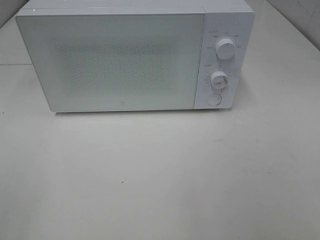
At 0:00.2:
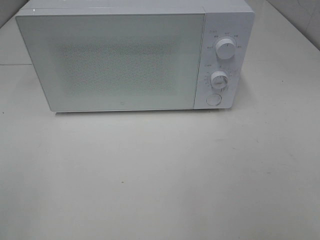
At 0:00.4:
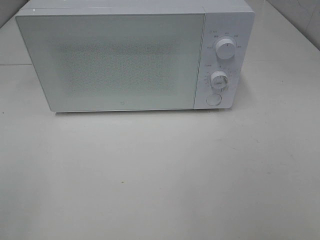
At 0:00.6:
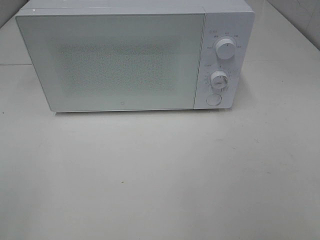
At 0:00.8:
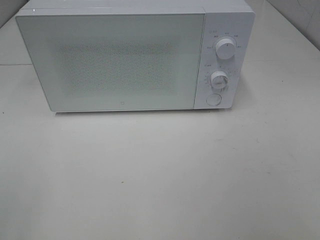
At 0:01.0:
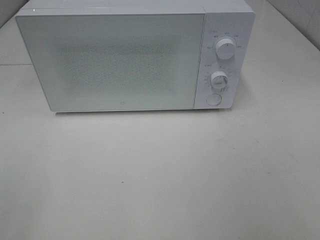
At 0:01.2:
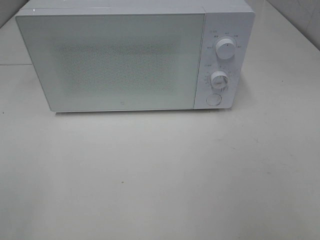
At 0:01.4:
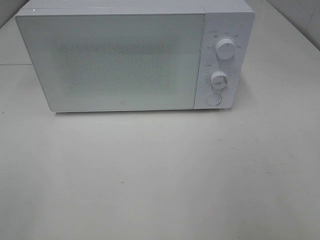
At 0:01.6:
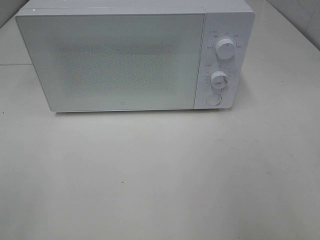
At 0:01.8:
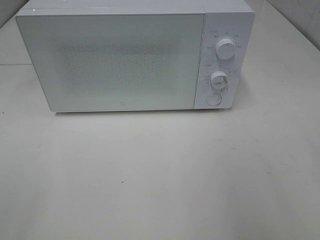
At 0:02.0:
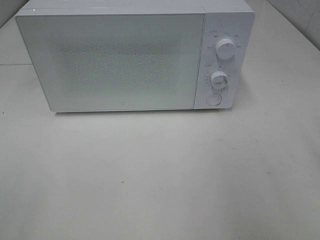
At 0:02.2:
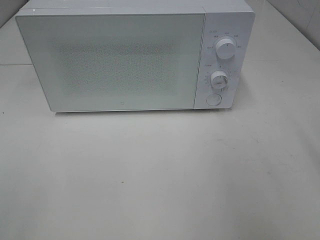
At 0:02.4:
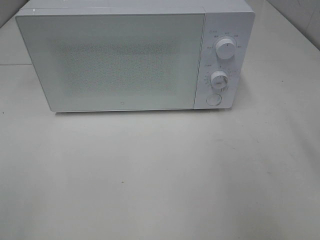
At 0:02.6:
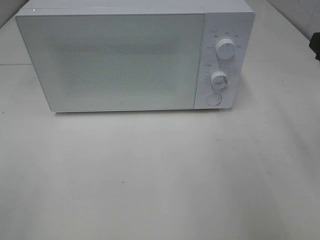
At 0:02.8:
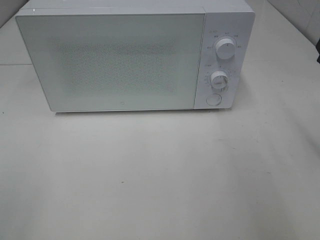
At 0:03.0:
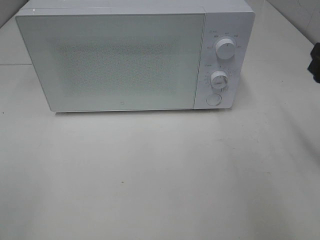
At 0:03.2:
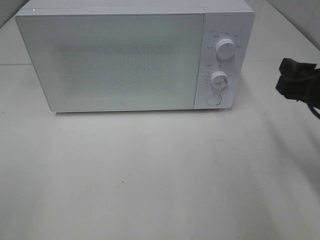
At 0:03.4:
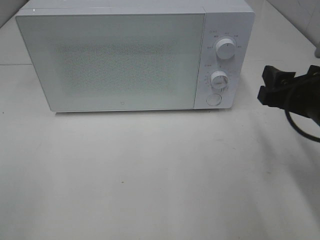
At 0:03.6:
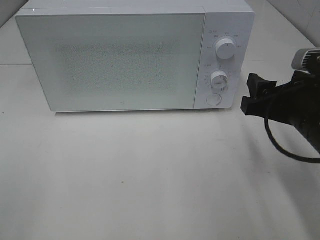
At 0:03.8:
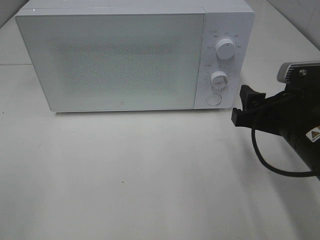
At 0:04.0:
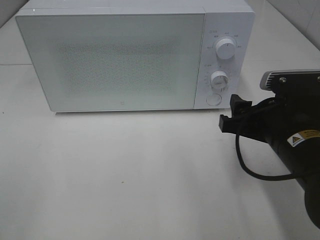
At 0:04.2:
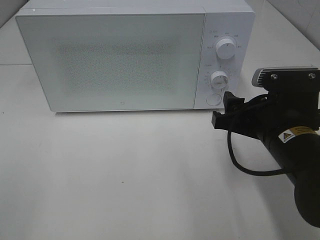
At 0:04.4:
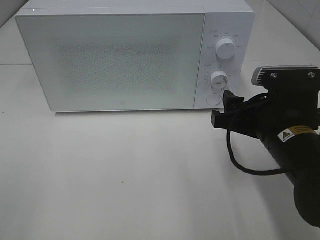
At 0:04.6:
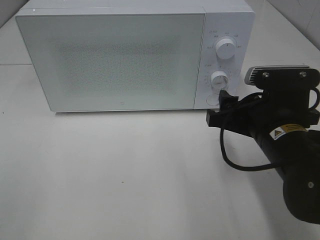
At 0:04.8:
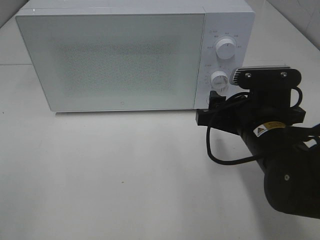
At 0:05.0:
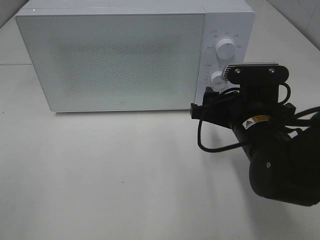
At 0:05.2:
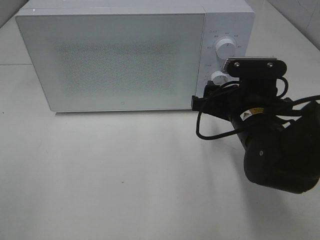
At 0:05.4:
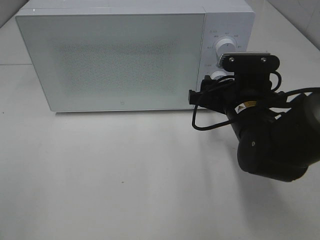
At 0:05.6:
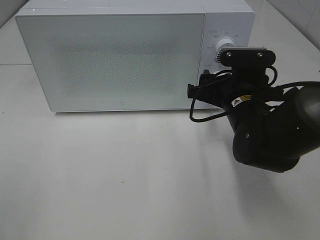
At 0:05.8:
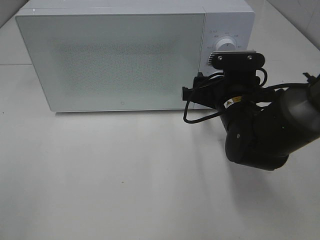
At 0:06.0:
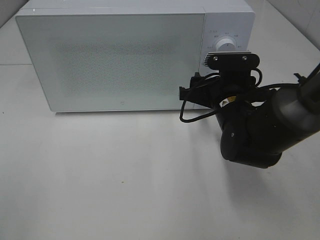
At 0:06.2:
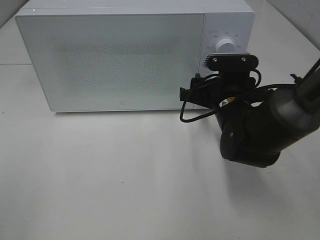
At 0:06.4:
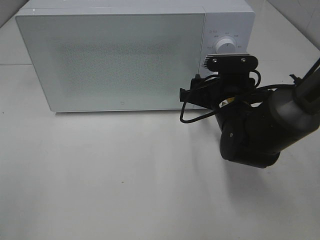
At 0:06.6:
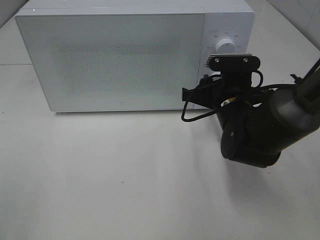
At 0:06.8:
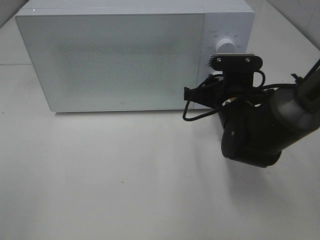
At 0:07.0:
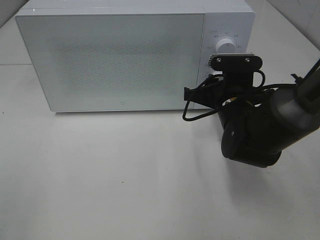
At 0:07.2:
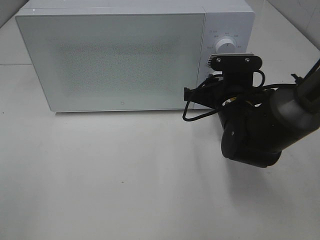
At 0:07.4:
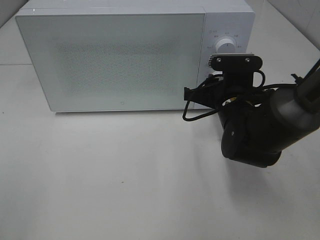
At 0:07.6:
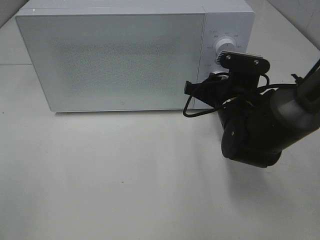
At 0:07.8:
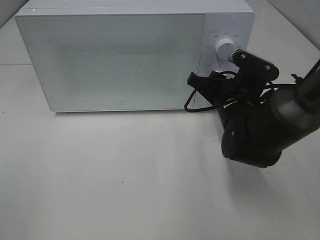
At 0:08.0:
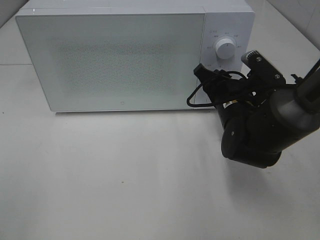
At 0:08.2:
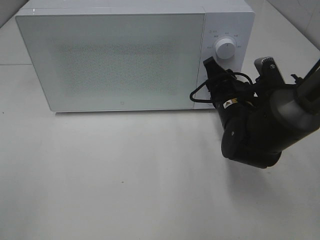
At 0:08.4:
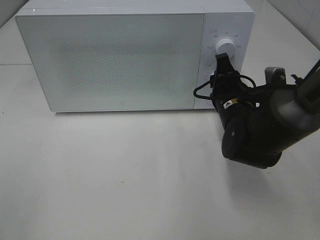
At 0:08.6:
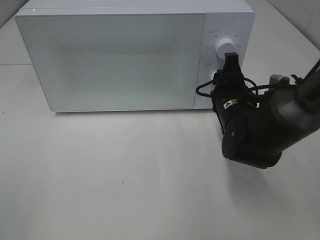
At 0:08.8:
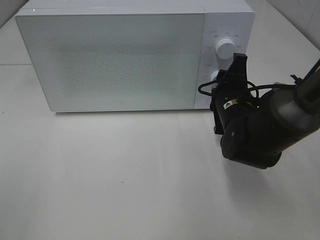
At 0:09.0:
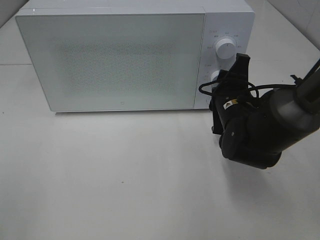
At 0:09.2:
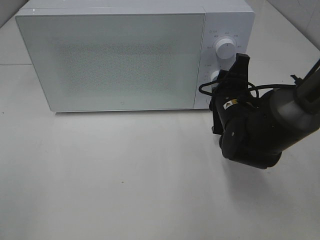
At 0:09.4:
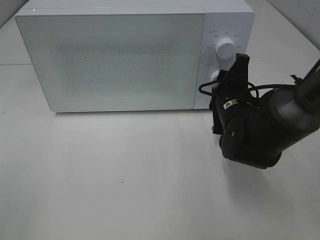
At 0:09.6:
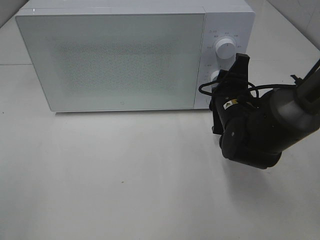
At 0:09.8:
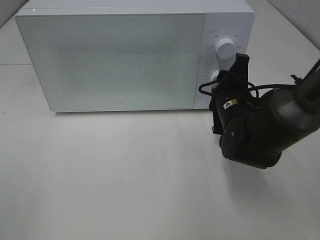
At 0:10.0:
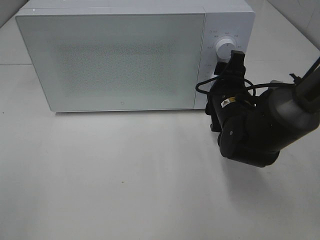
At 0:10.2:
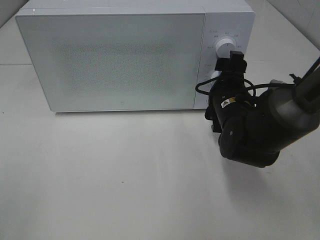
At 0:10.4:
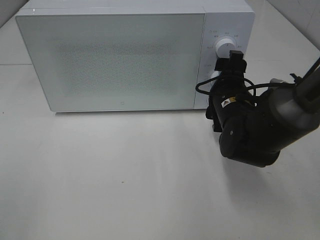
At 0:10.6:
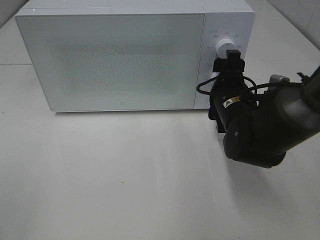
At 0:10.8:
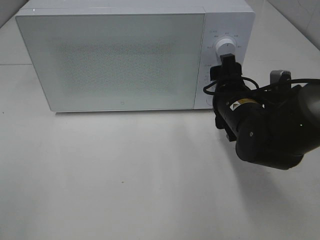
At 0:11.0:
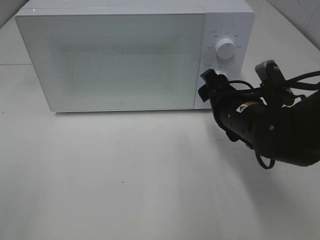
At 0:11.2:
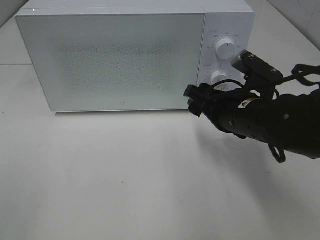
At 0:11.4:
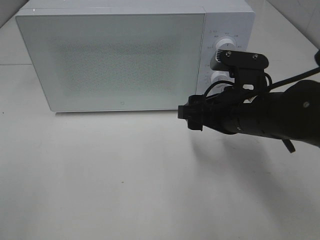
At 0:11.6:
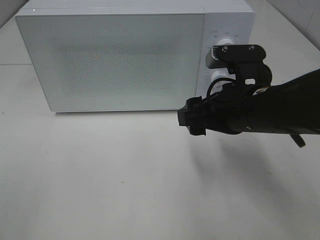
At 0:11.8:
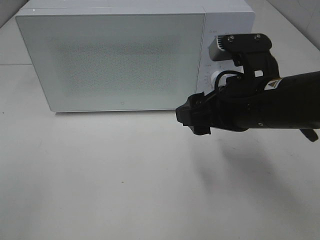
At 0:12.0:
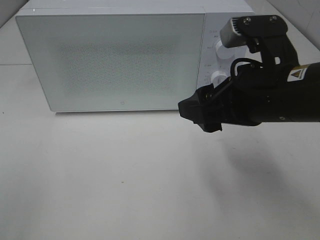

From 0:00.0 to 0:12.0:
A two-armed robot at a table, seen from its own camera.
Task of the whole recording: Heat Sandwich.
Step, from 0:00.0 to 0:10.8: Right hand: twist timer button.
From 0:01.6 to 0:03.0: The right gripper shifts about 15 cm forward and downward.
From 0:03.0 to 0:04.4: The right gripper goes approximately 10 cm to the left and downward.
From 0:04.4 to 0:06.0: The right gripper shifts approximately 10 cm forward.
From 0:06.0 to 0:07.6: The right gripper closes up.
From 0:09.0 to 0:10.4: The right gripper opens.
From 0:10.4 to 0:12.0: The right gripper travels upward and backward by approximately 15 cm.

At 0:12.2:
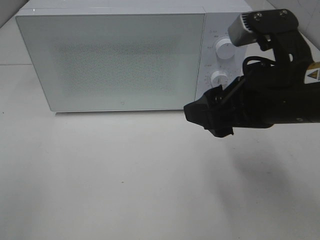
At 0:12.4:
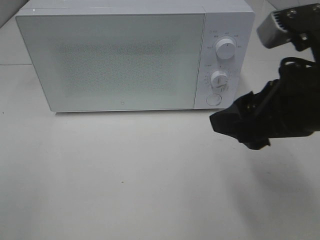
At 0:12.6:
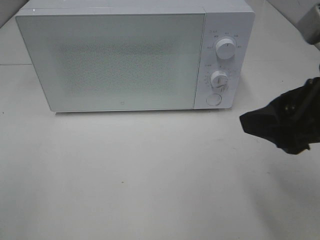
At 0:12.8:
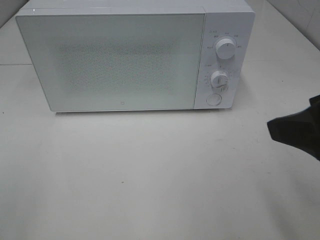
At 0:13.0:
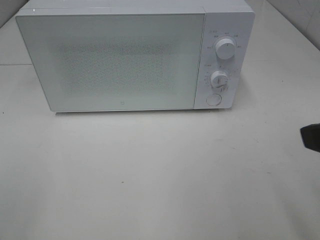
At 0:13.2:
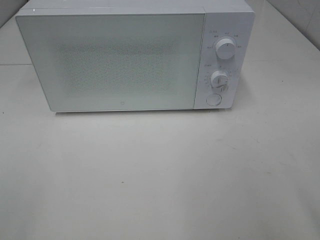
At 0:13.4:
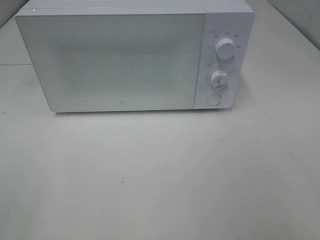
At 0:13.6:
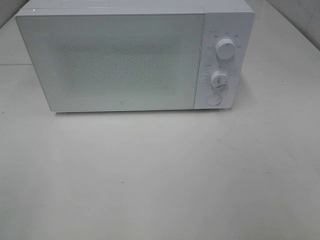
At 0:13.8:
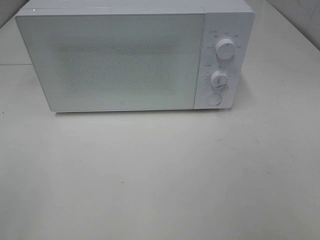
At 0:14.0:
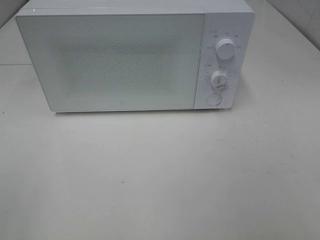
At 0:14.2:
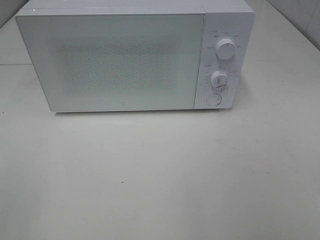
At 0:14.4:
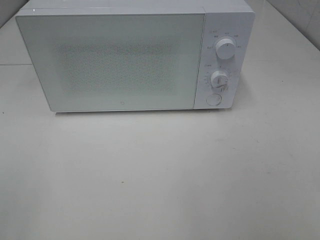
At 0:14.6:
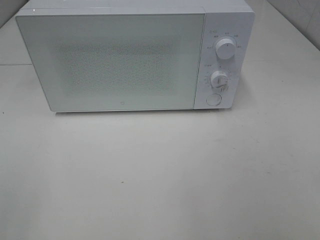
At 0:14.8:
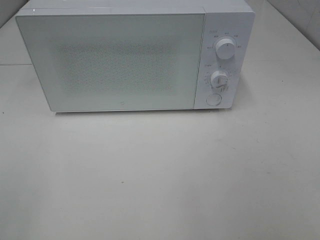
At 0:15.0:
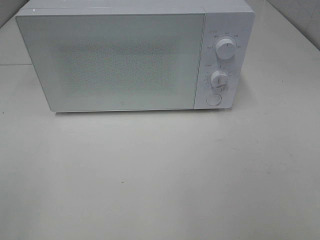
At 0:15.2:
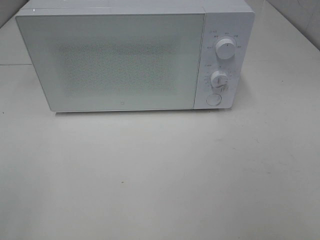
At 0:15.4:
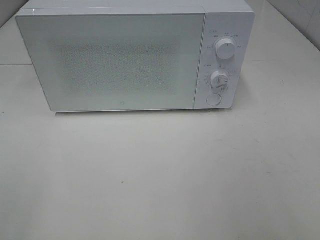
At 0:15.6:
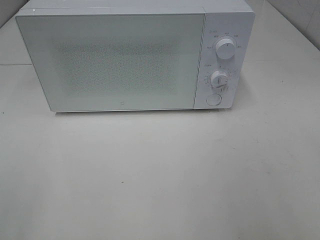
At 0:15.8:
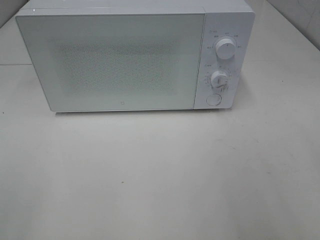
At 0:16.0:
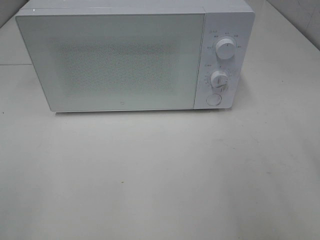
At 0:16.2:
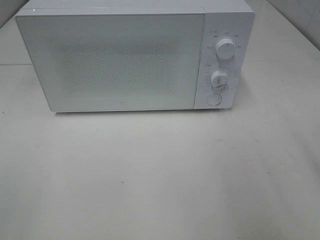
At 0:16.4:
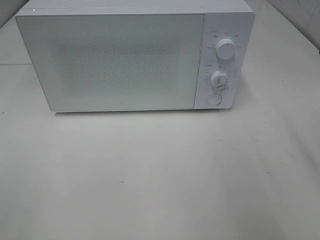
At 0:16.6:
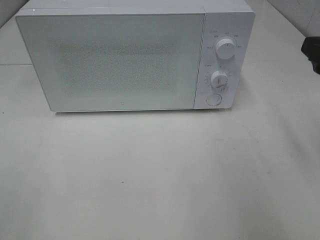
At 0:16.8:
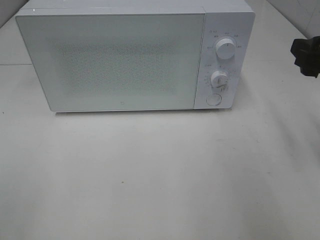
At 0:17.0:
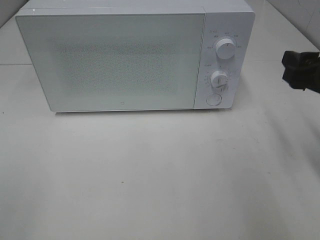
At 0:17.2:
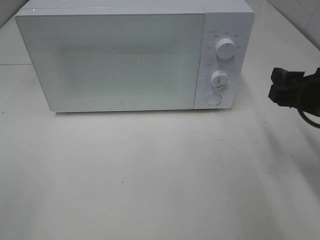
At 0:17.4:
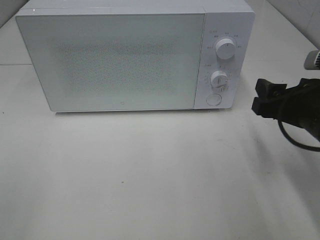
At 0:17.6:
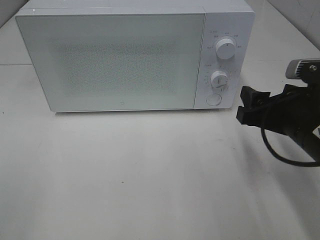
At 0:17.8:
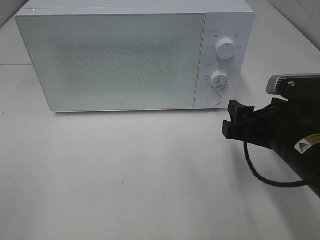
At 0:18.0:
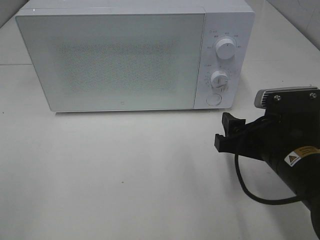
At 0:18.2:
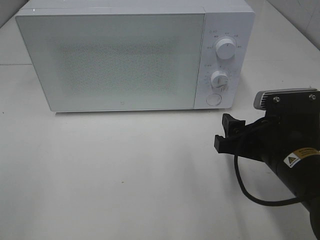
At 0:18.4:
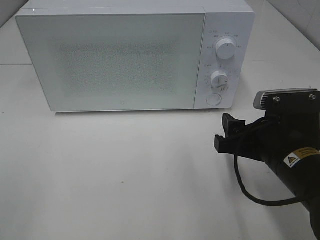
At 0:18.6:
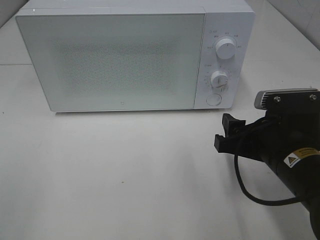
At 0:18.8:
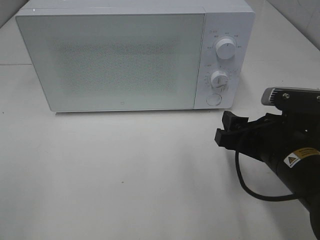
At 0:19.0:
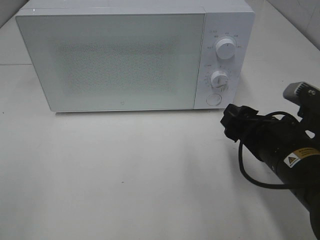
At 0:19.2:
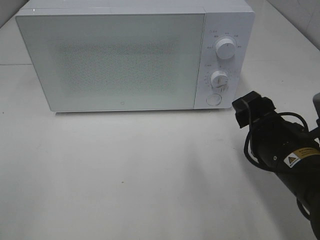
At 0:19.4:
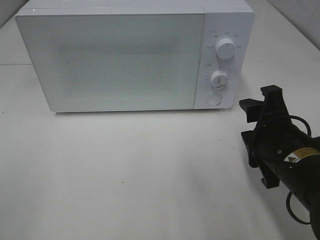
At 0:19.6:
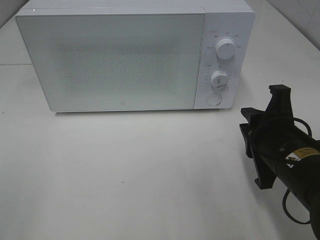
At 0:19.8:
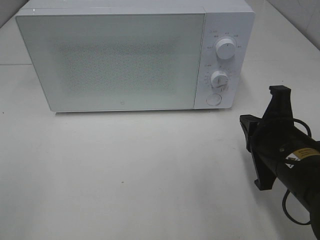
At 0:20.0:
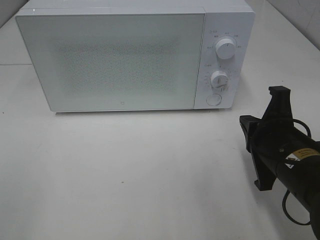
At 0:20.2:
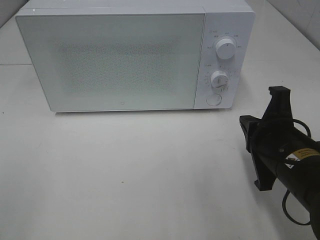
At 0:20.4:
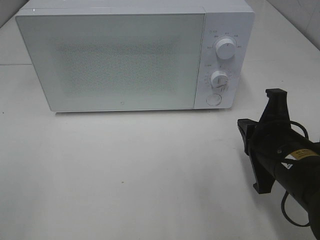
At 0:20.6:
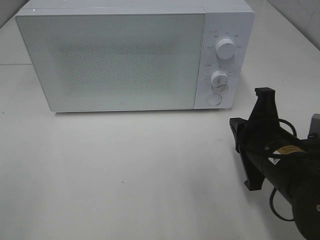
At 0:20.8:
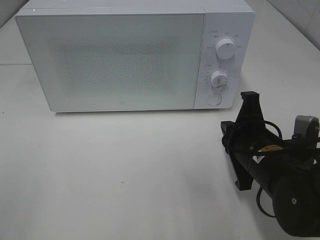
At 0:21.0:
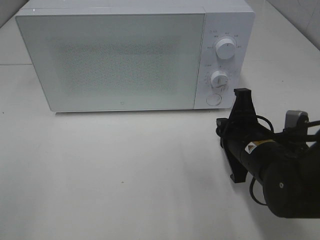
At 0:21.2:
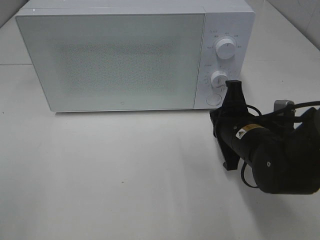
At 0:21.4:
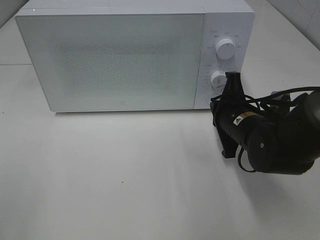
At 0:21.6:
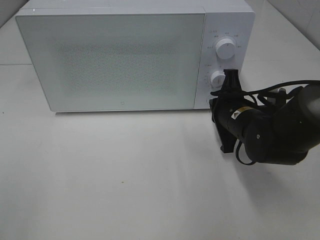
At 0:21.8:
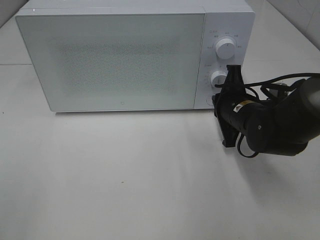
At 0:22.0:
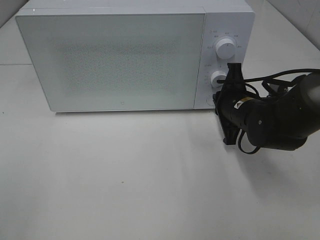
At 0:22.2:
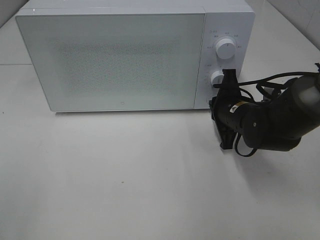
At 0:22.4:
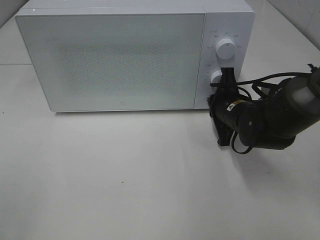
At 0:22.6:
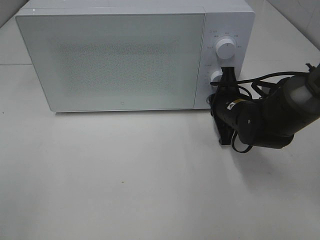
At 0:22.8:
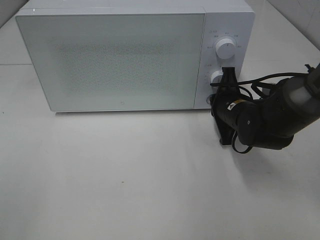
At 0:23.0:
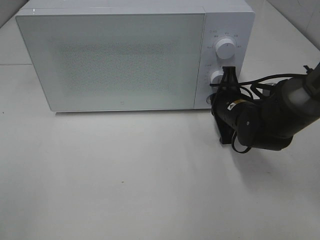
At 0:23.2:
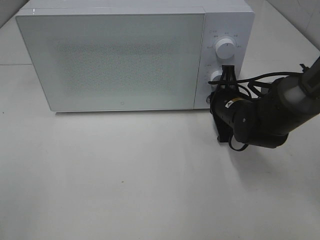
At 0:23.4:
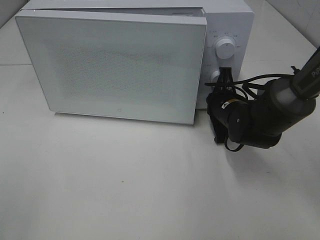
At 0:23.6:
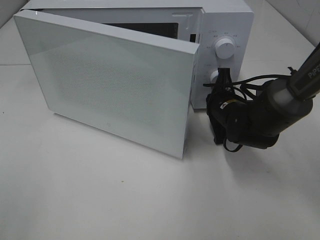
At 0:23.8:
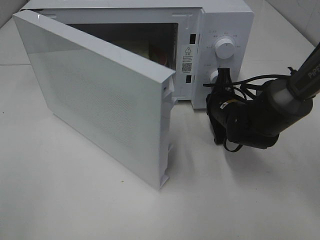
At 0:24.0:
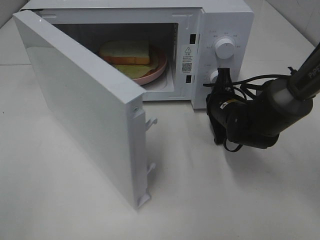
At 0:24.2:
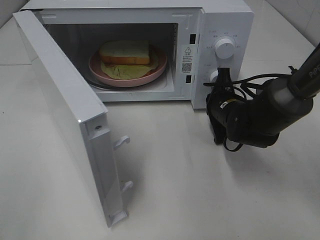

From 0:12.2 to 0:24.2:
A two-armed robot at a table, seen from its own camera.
Task of the whole recording: Heat Sandwich.
From 0:12.2 to 0:13.8: The right gripper is displaced backward and to the right by some 25 cm.
From 0:15.2 to 0:16.6: The right gripper travels forward by some 20 cm.
From 0:16.6 to 0:18.2: The right gripper goes approximately 15 cm downward and to the left.
From 0:18.2 to 0:19.8: The right gripper closes up.
From 0:19.8 to 0:21.2: The right gripper moves forward, some 10 cm.
From 0:21.2 to 0:22.6: The right gripper is displaced forward by some 10 cm.
